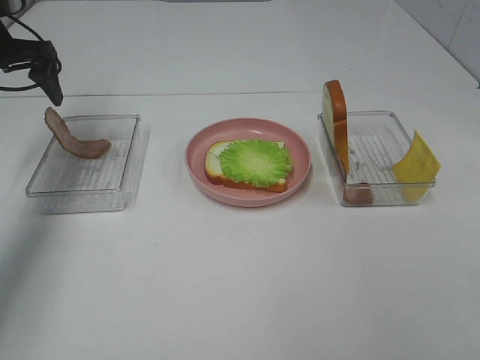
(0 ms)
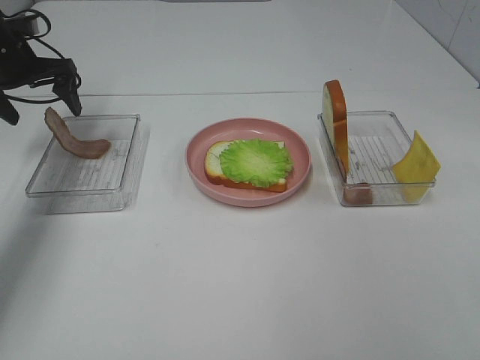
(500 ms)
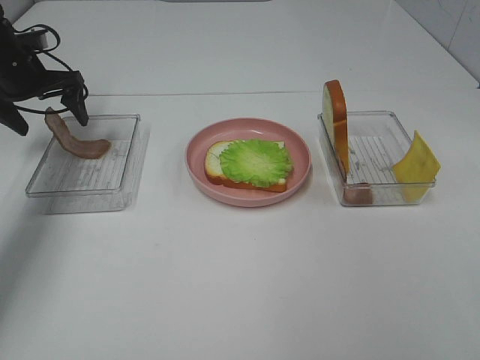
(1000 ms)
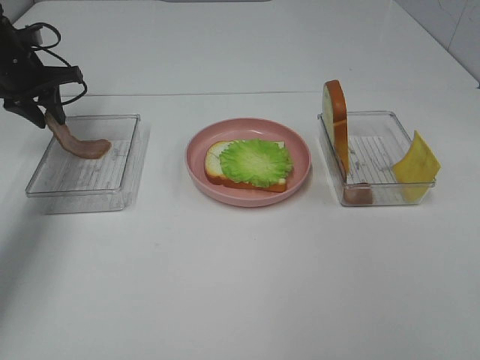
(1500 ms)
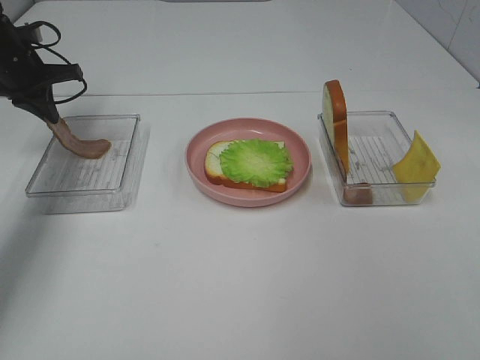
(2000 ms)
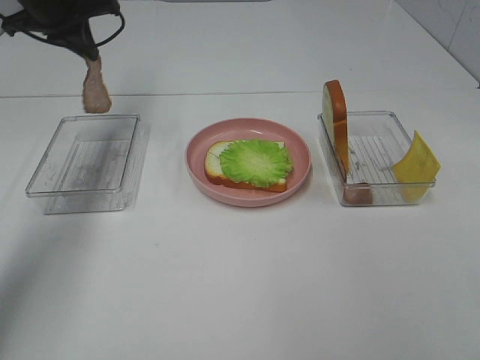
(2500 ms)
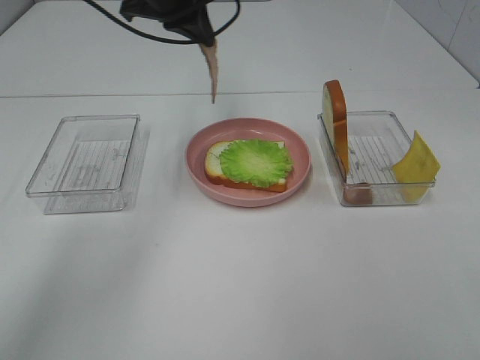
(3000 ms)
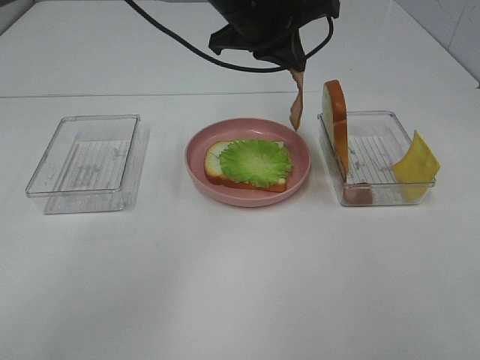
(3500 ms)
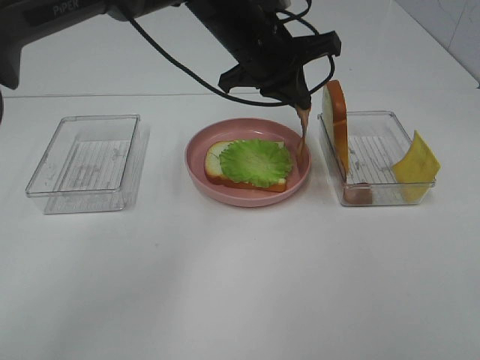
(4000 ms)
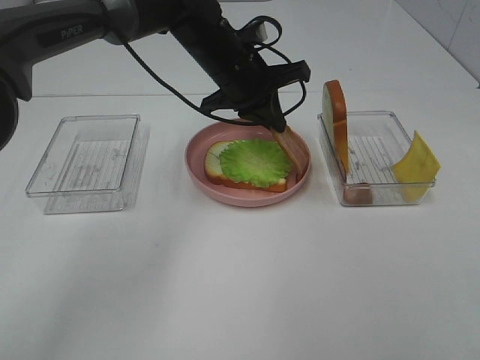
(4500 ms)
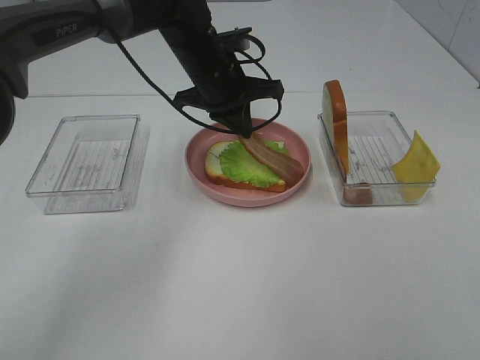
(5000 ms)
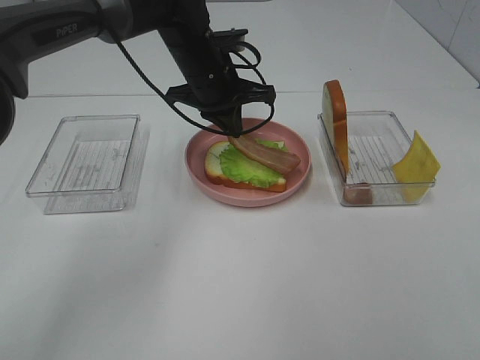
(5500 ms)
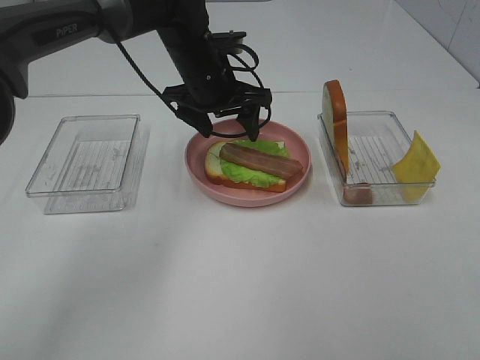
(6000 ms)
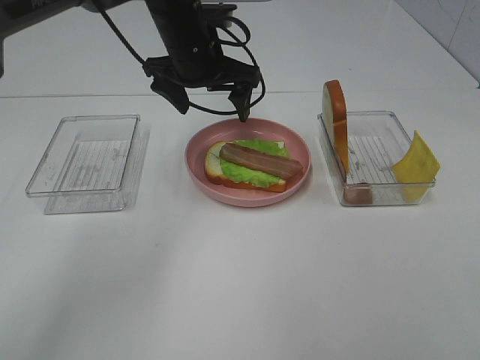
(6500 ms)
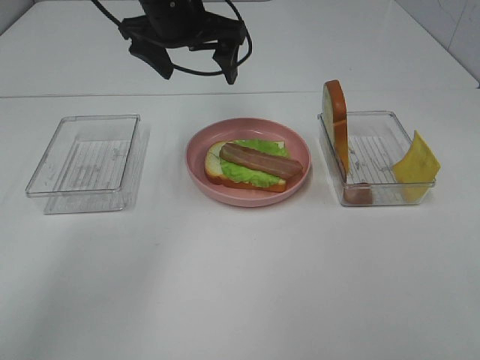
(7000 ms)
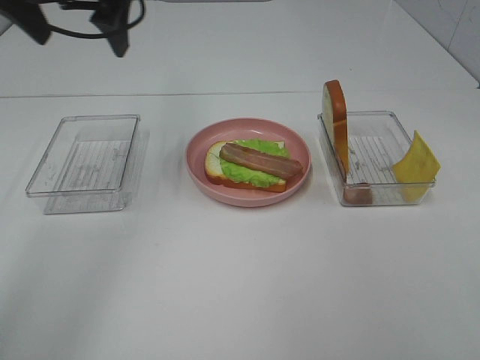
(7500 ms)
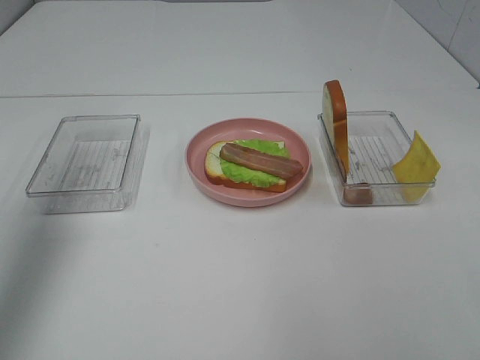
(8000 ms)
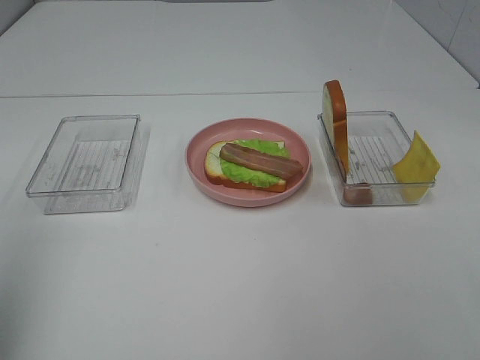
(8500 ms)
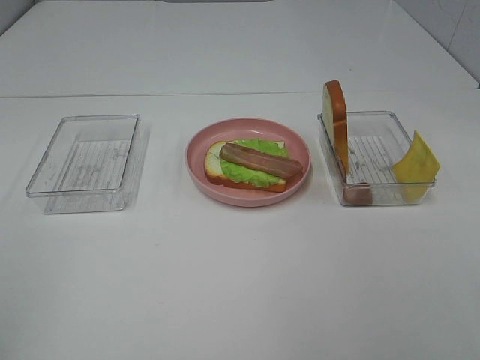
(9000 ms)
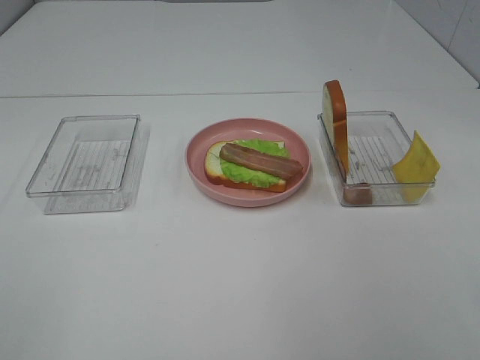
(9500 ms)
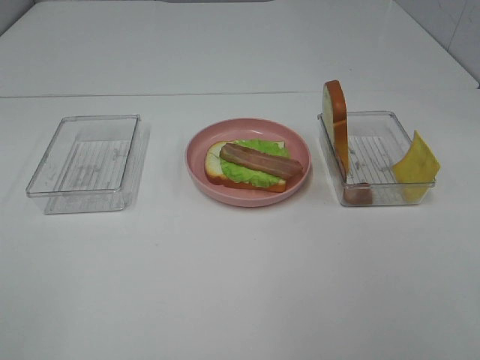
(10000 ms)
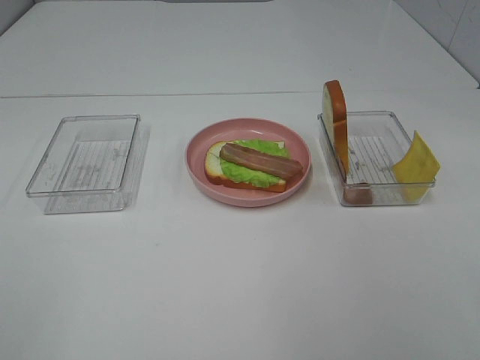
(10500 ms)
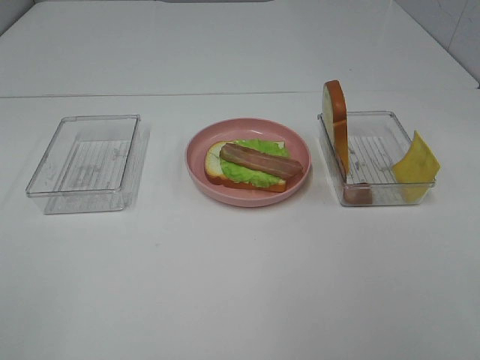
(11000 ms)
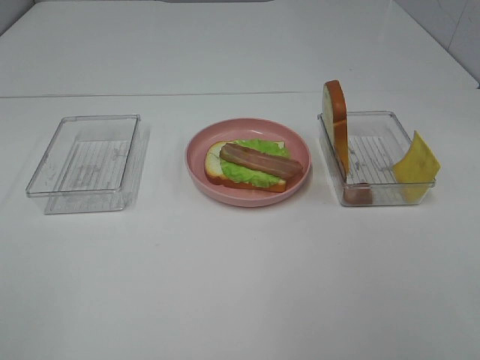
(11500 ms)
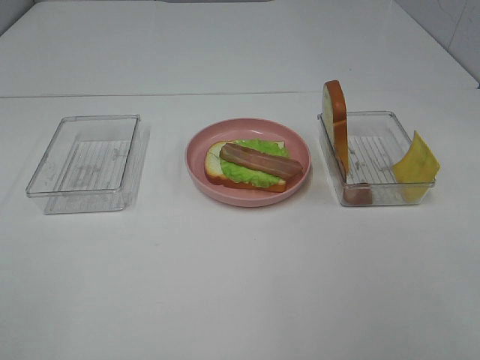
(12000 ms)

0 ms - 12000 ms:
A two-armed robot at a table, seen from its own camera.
Task of the whole recording: Make sandwiches.
Step, 0 ms - 2000 ms: Left hand:grab the bacon.
Step, 2500 ms - 6000 ms: Left hand:place bacon on lettuce slice.
0 ms - 2000 ms: The left gripper is displaced downward by approximately 5 cm, and closes up.
2000 ms - 4000 ms: The left gripper heads to the right, covering some 35 cm.
4000 ms - 6000 ms: The left gripper moves to the left, about 5 cm, and opens up.
6000 ms - 8000 ms: The left gripper heads to the left, backward and upward, covering about 40 cm.
8000 ms - 10000 ms: The left gripper goes about 25 cm backward.

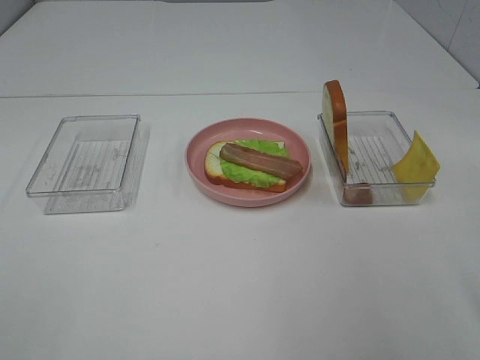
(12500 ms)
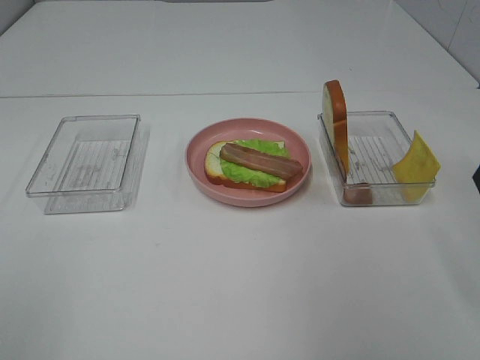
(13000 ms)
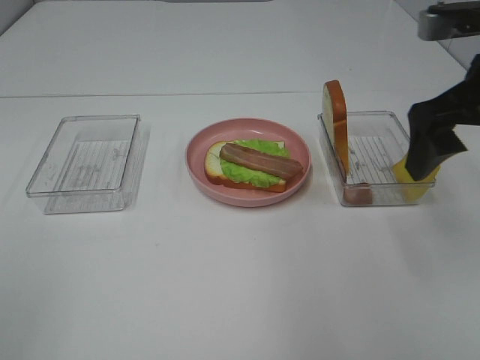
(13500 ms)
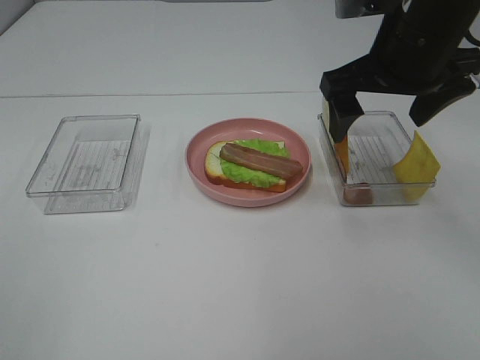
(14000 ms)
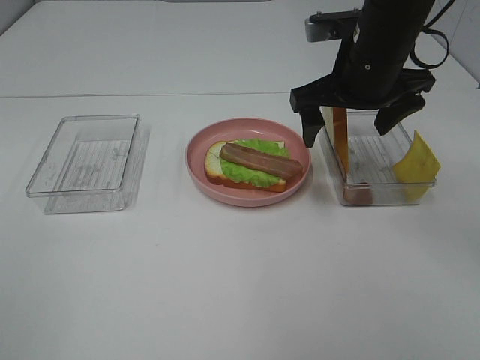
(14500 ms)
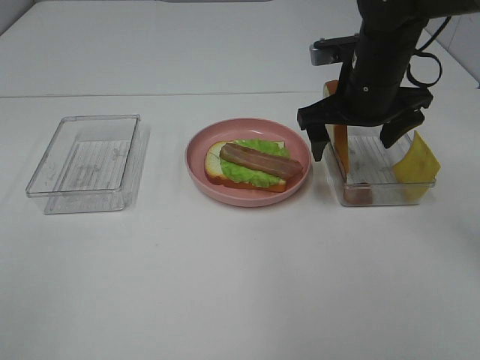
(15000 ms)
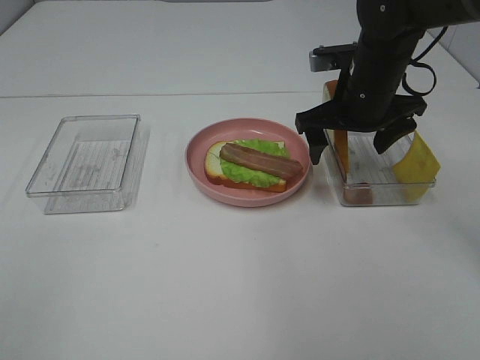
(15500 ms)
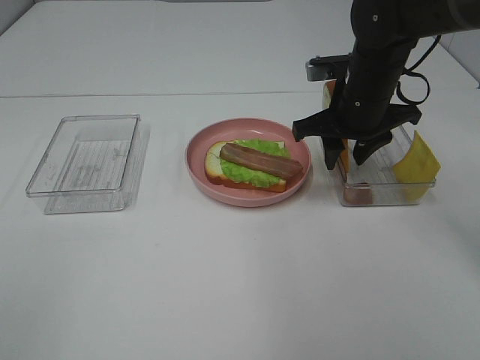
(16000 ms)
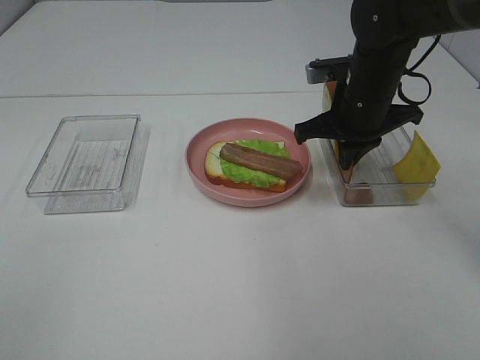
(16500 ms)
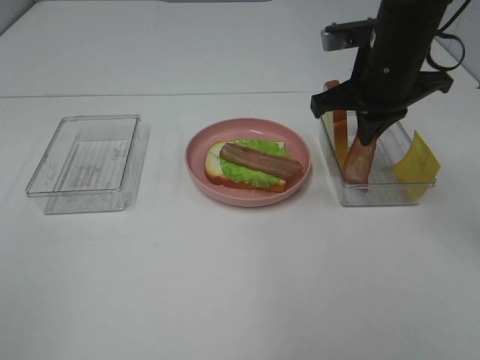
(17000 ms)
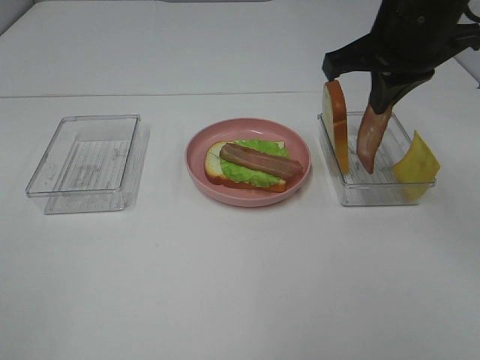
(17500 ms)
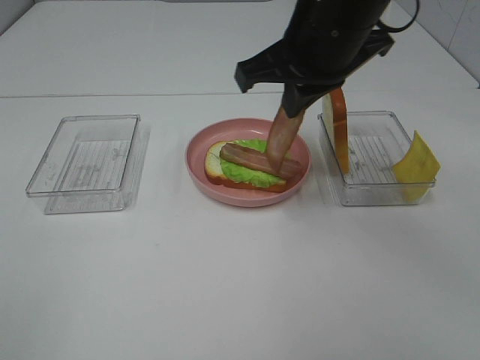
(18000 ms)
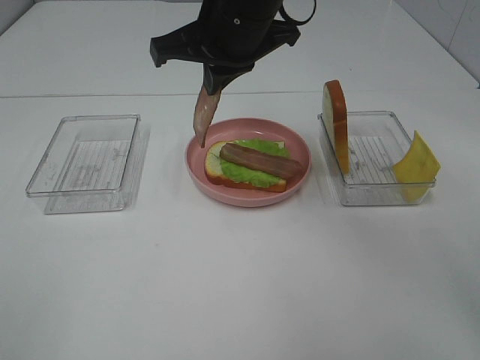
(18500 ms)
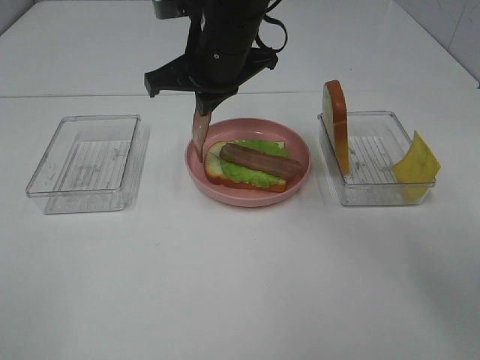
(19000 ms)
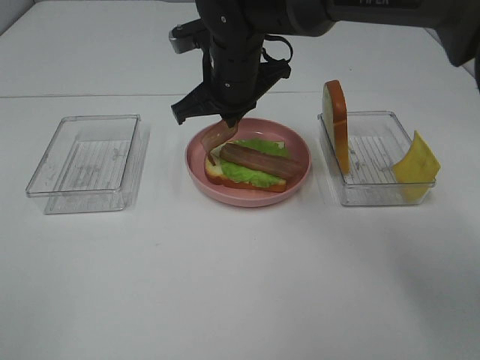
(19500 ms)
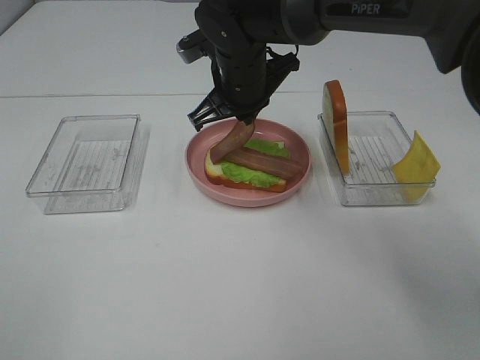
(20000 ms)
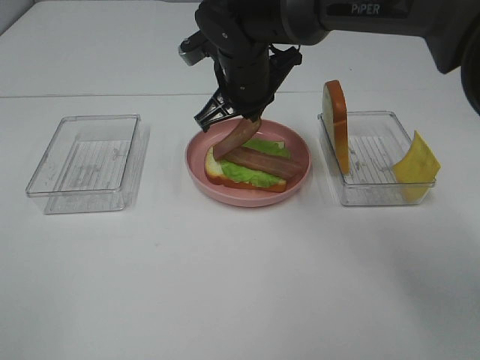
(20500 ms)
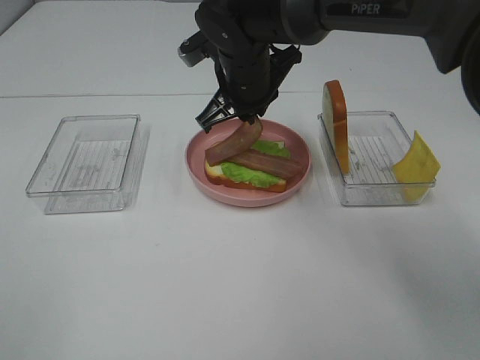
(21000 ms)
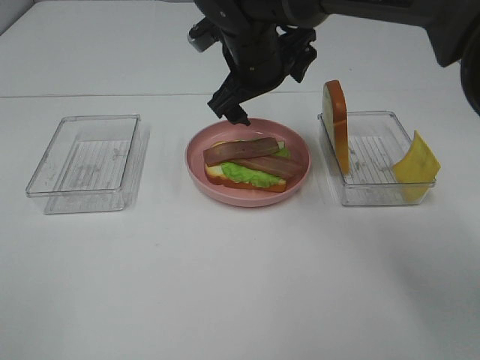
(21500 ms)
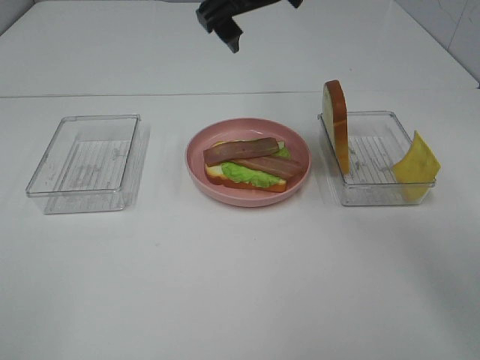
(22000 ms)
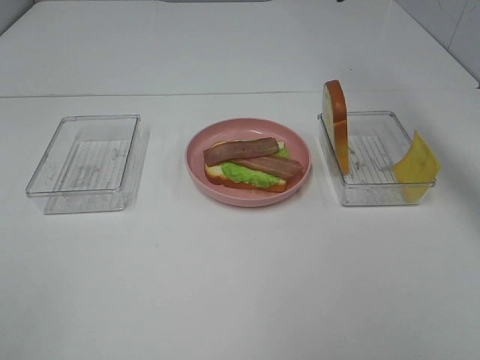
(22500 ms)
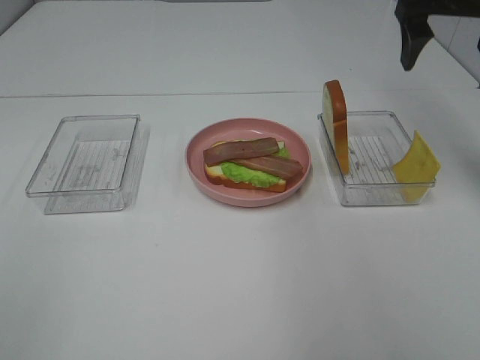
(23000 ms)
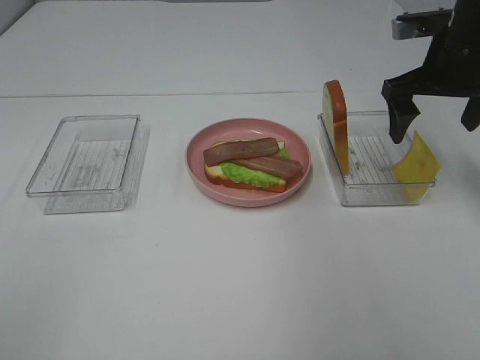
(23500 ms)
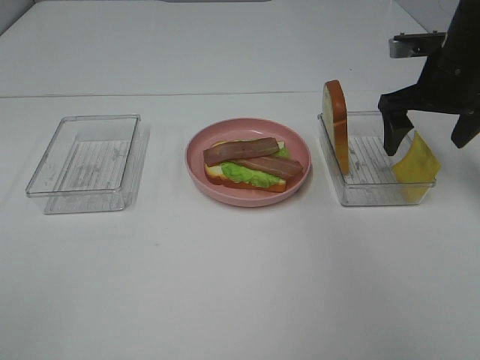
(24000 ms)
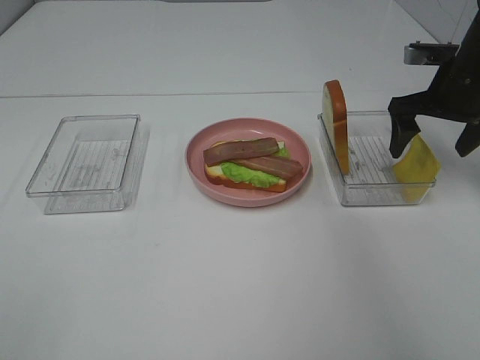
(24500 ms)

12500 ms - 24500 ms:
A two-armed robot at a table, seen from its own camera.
Task of the whole recording: Make sandwiches.
Step, 12500 ms - 16500 ms: Right hand:grab the bacon.
Step, 17000 ms - 21000 ms: Right hand:place bacon on bacon.
12500 ms - 14500 ms: The right gripper moves forward and to the left, some 30 cm.
14500 ms - 16500 ms: The right gripper shifts roughly 5 cm downward, and closes.
16500 ms - 18500 ms: The right gripper heads to the left and upward, covering roughly 20 cm.
18500 ms - 20500 ms: The right gripper is displaced downward and forward by some 10 cm.
20500 ms - 22500 ms: The right gripper shifts roughly 25 cm upward and to the right, and opens its fingers.
22500 ms - 24500 ms: The right gripper is displaced downward and to the right by roughly 20 cm.

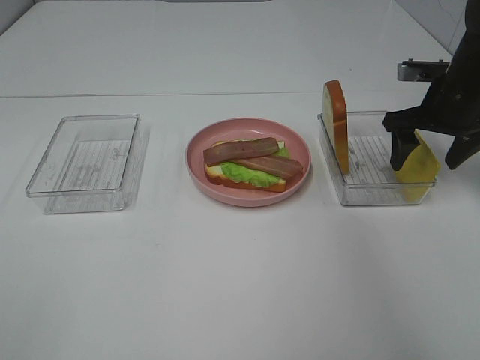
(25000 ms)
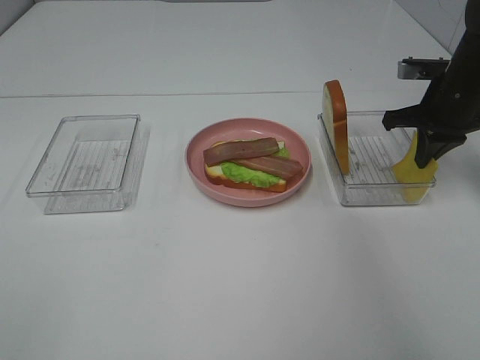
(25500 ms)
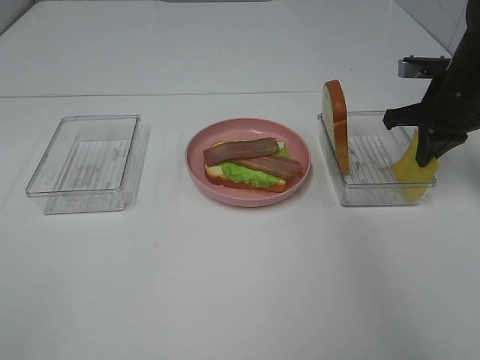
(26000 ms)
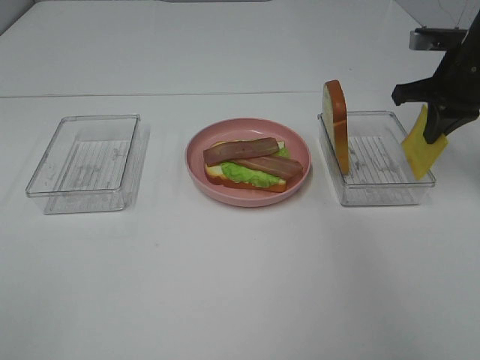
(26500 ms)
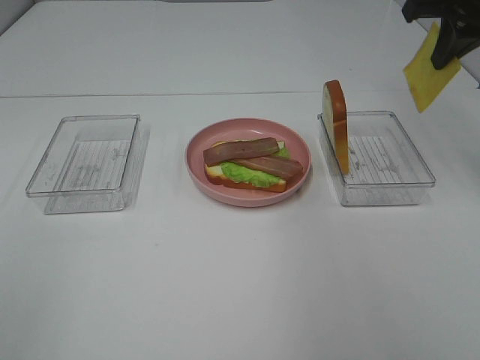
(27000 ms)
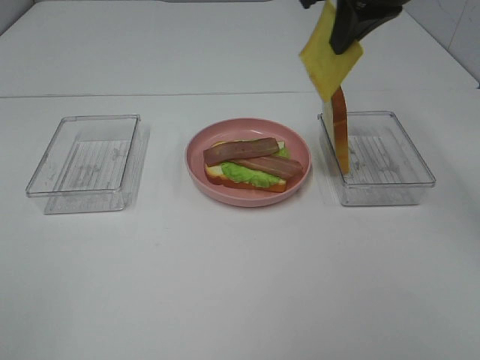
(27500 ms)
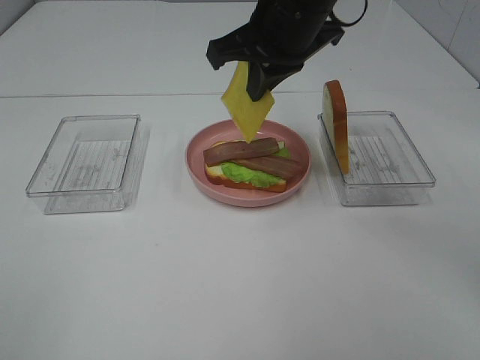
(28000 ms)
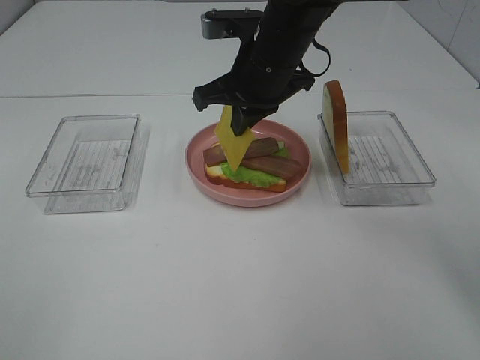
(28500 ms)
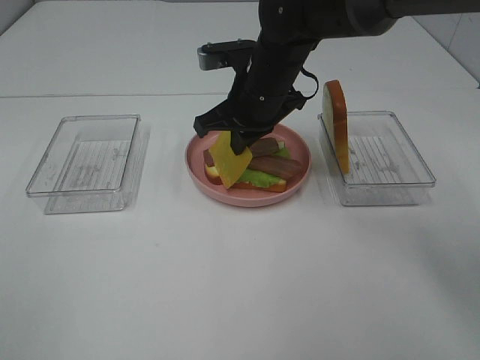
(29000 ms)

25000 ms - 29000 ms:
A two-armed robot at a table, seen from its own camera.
Task of the whole recording: Make sandwiches.
25000 ms - 27000 ms: The right gripper goes some 15 cm upward, and closes.
27000 ms - 29000 ms: The right gripper shifts about 25 cm to the left and downward.
